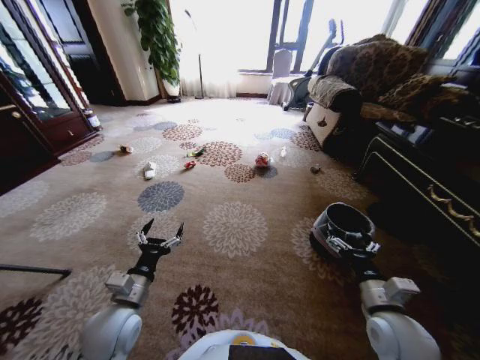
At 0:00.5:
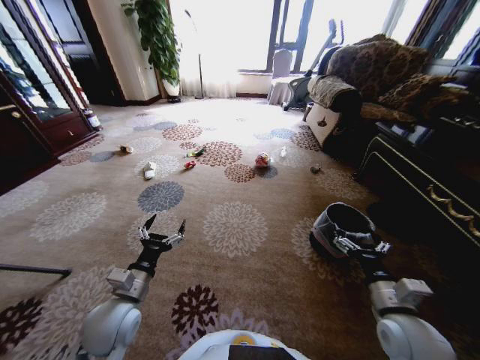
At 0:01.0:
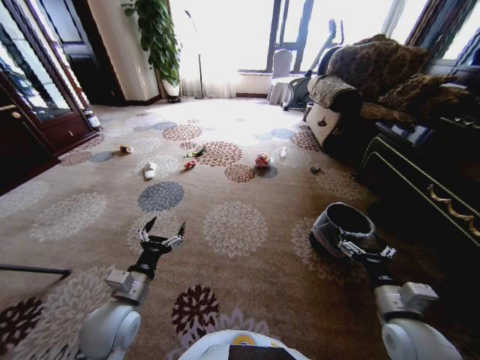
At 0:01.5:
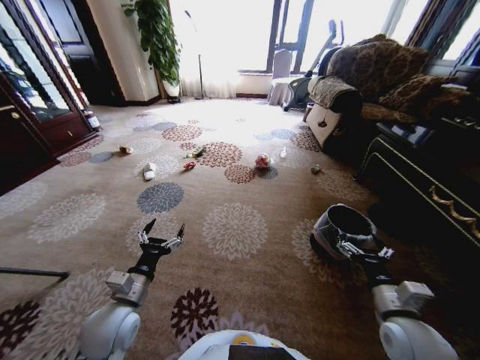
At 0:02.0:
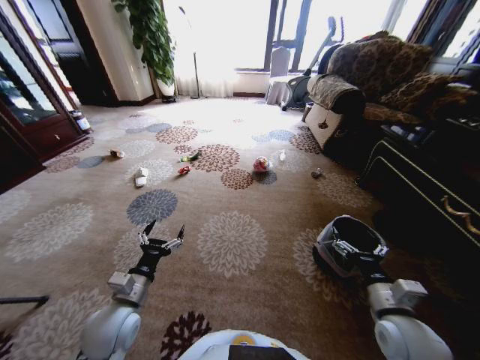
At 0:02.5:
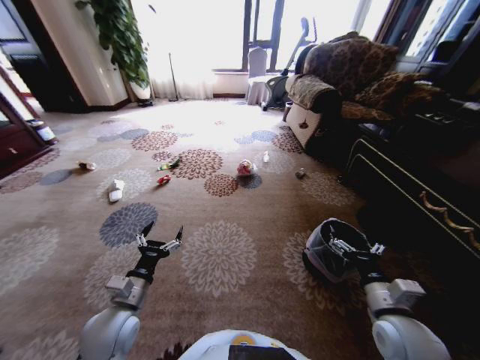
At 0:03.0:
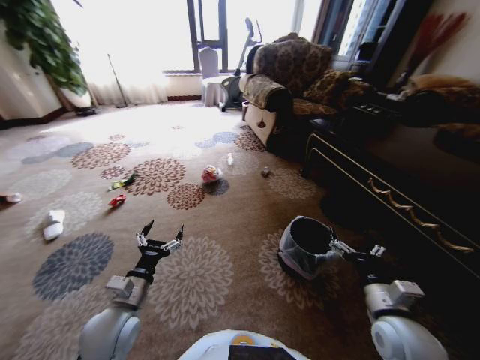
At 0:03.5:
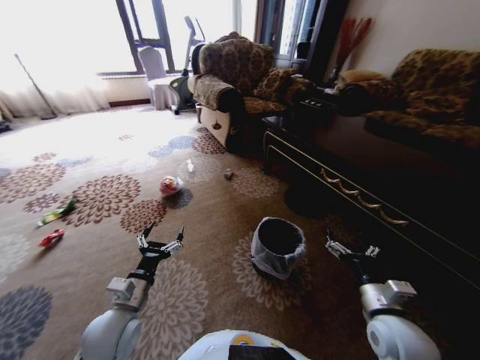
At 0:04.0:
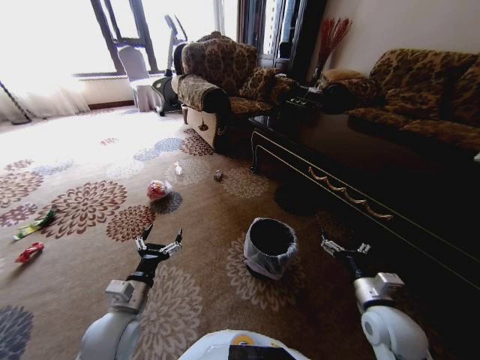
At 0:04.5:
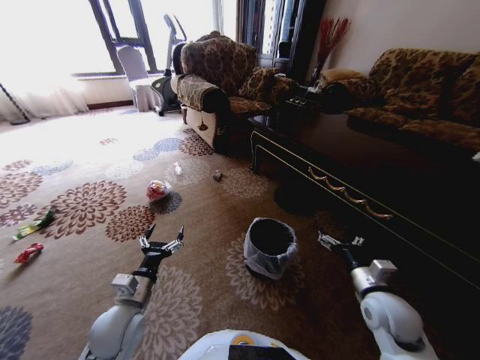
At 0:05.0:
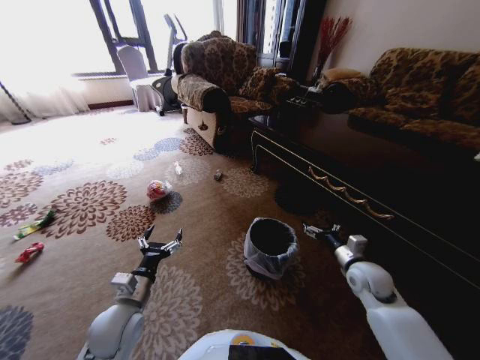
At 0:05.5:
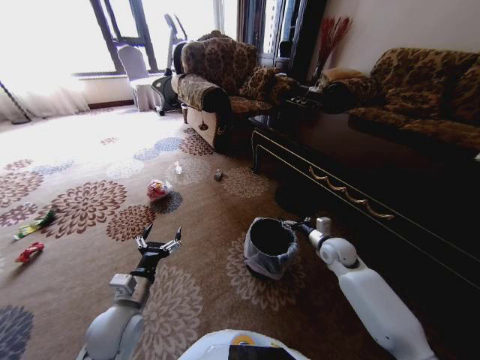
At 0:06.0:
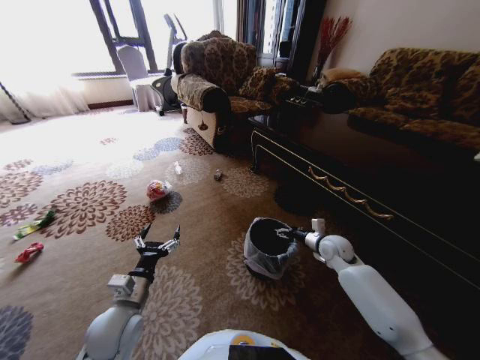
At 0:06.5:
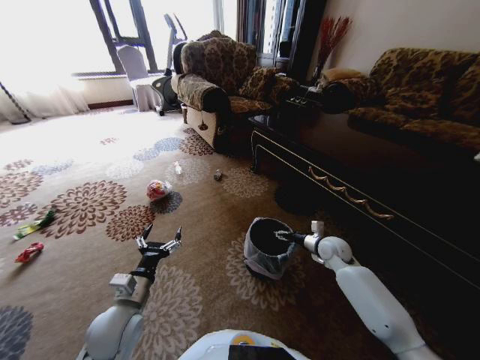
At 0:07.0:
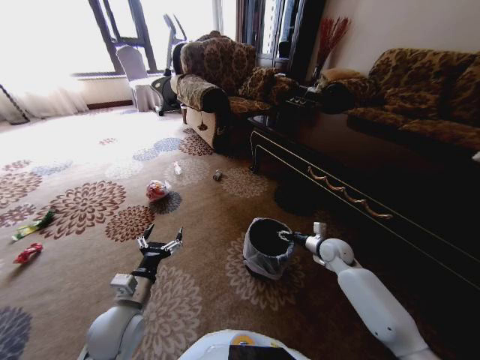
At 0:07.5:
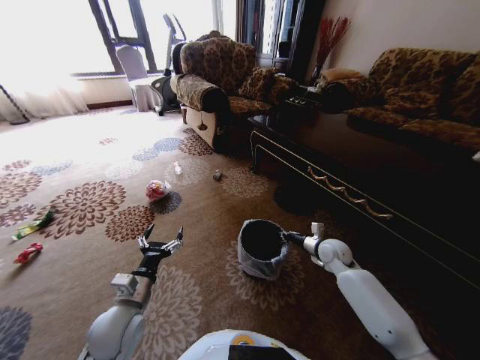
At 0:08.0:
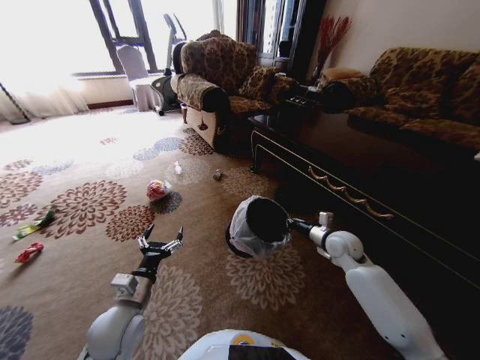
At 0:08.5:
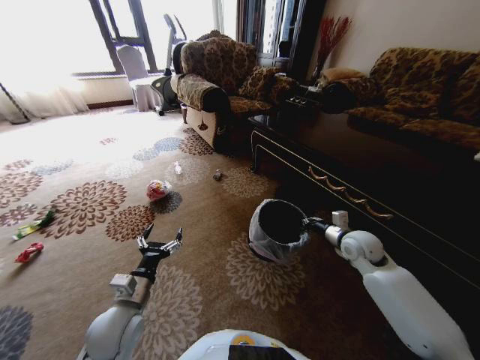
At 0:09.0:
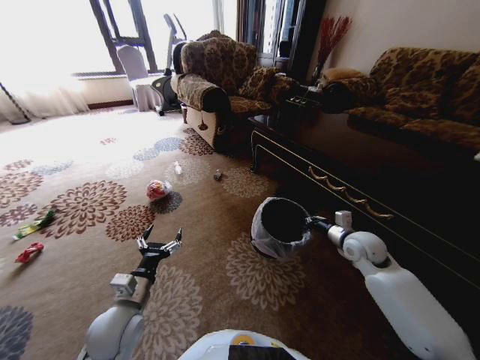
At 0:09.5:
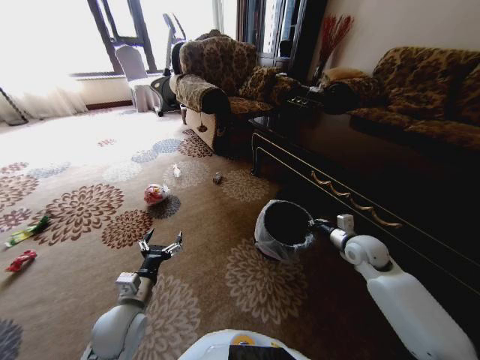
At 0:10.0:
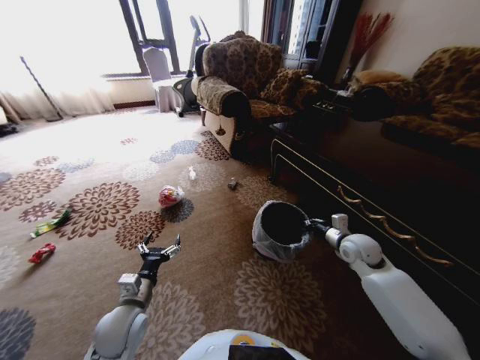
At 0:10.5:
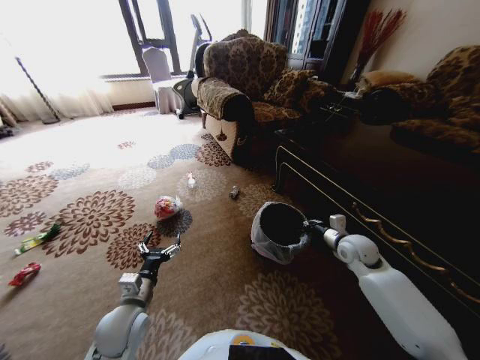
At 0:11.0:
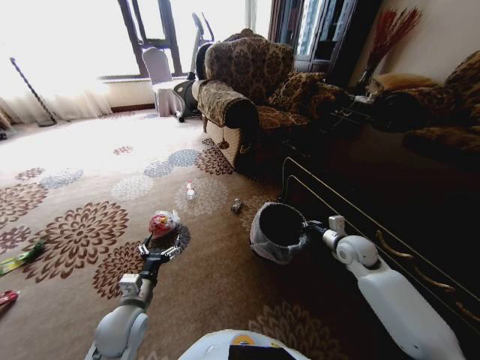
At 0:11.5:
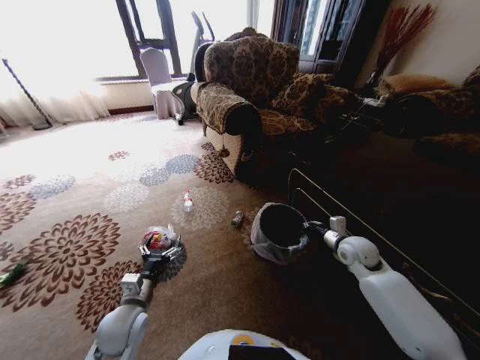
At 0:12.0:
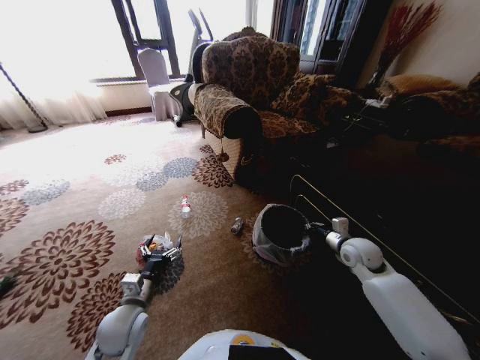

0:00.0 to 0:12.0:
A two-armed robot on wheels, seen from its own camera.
Task of the whole recording: Pick up the trash from the ground and place it into the trash bin.
0:04.0 to 0:06.0: The right gripper heads forward, covering approximately 20 cm.
0:06.0 to 0:08.0: The right gripper closes.

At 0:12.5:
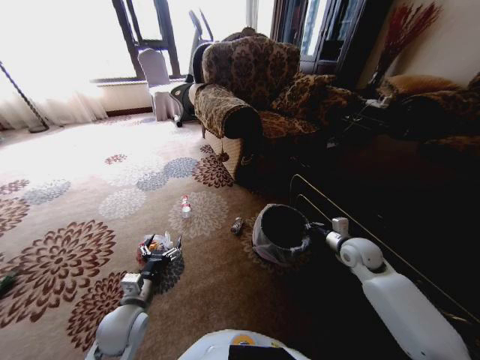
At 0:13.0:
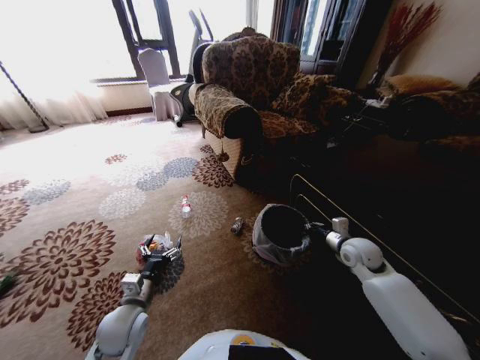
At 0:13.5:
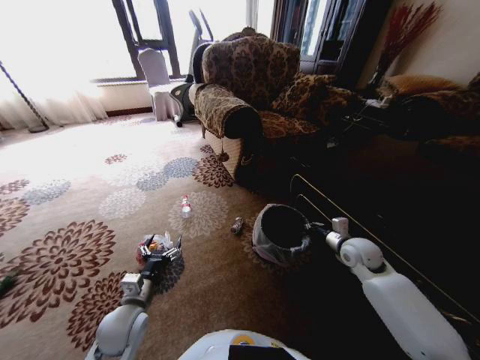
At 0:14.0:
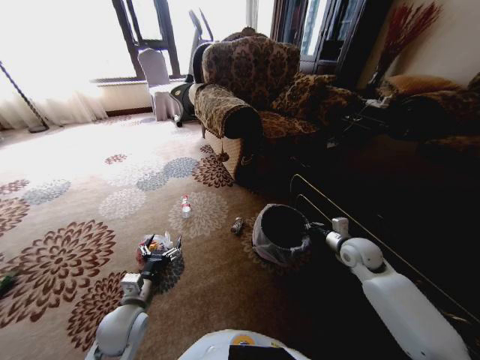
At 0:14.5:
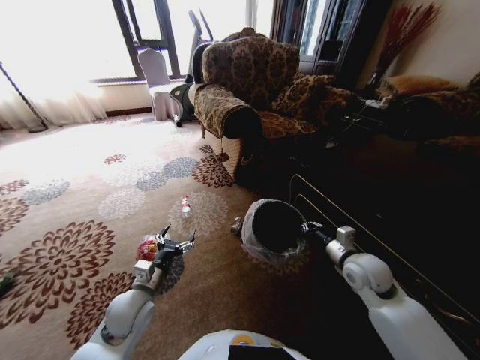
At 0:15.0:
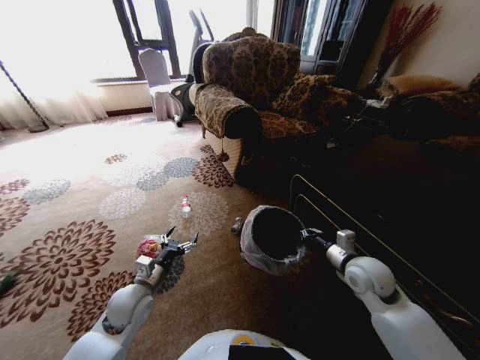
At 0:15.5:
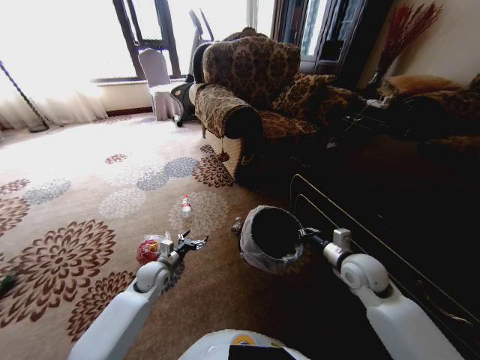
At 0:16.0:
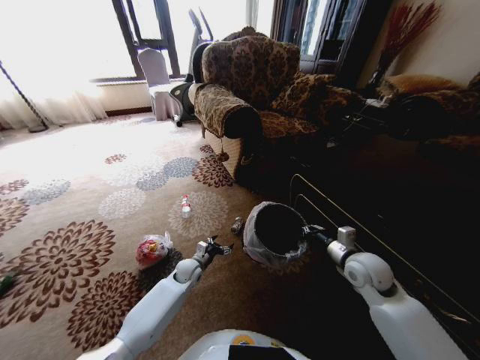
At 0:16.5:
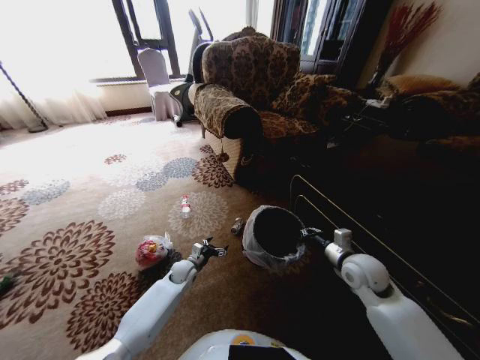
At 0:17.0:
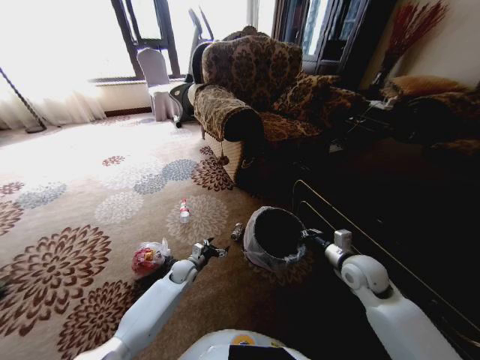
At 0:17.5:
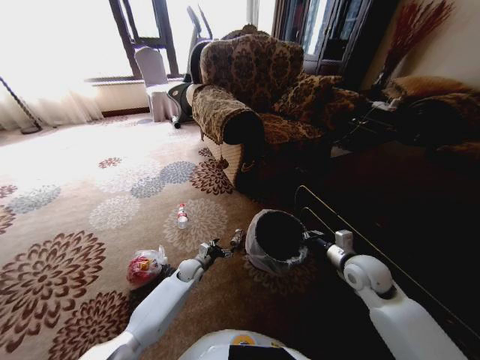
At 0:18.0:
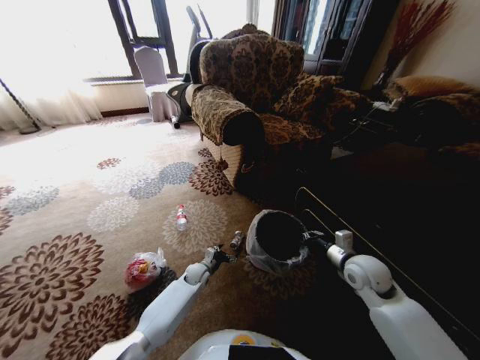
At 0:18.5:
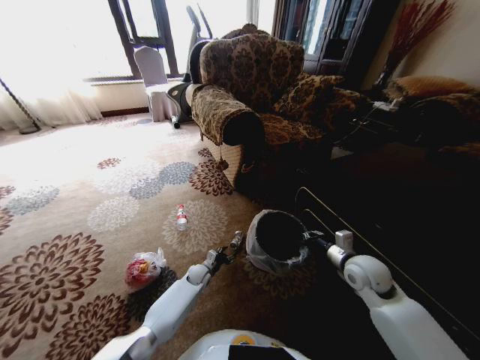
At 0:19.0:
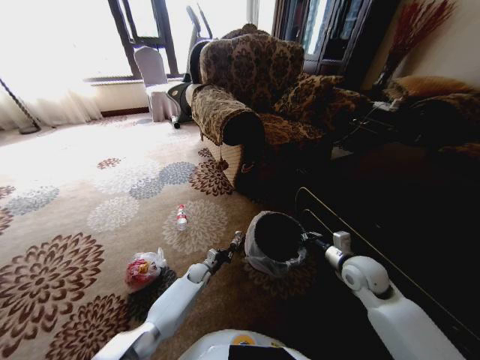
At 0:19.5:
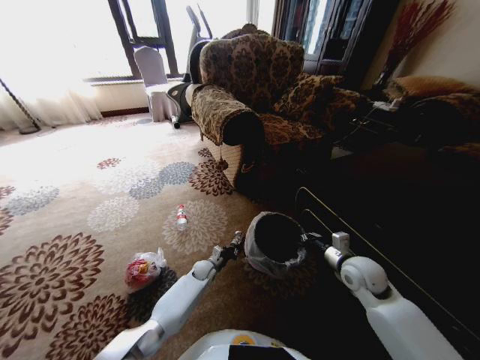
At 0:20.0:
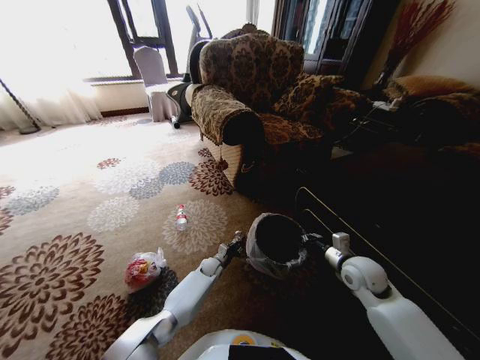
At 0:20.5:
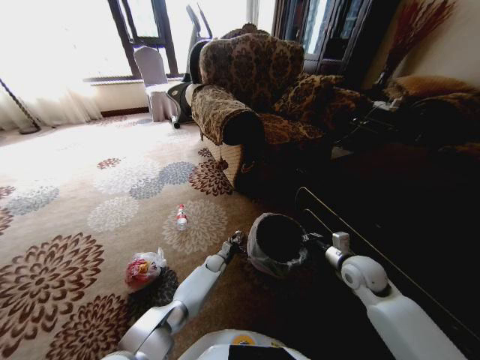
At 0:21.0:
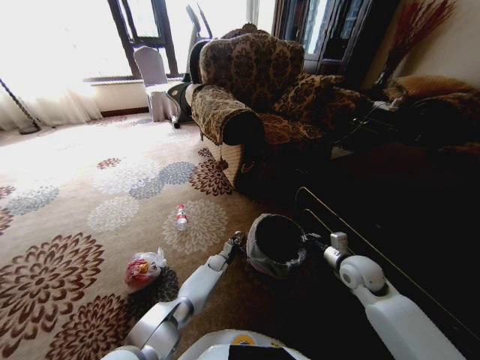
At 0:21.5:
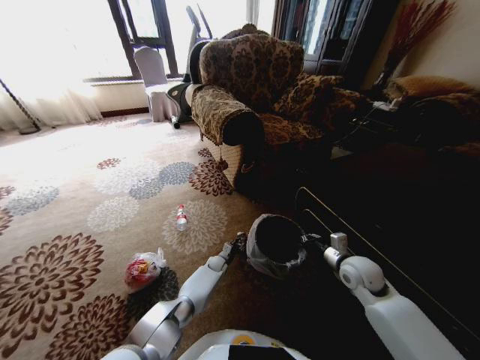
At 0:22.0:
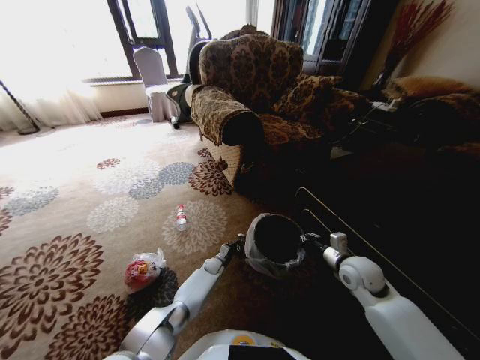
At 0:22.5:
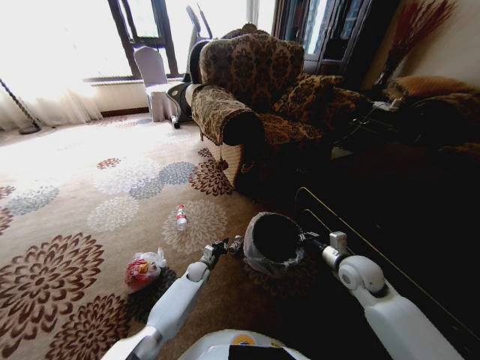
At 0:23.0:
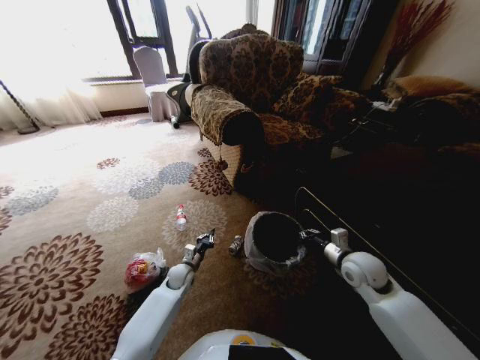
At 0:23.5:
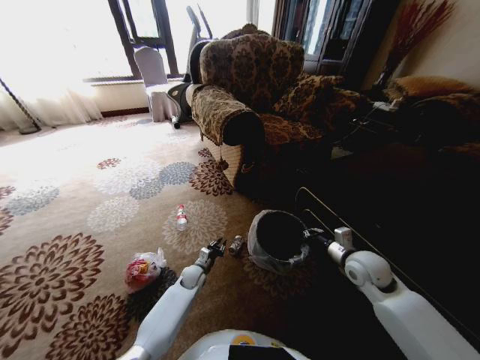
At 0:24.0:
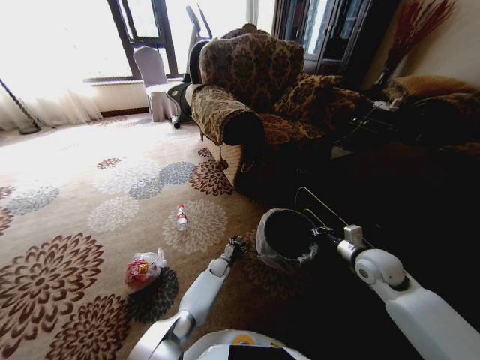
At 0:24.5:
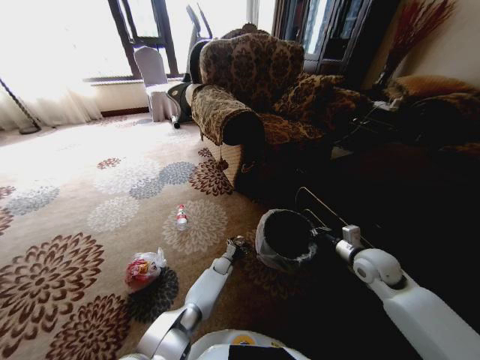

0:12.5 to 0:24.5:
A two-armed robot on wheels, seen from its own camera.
Task of the whole recording: Pick up the trash from the ground and place it into the trash bin.
0:12.5 to 0:14.5: The right gripper moves backward, about 5 cm.
0:14.5 to 0:16.5: The left gripper travels downward and forward by approximately 25 cm.
0:16.5 to 0:18.5: The left gripper is displaced downward by some 5 cm.
0:18.5 to 0:20.5: The left gripper heads to the right and forward, covering approximately 10 cm, and closes, then opens again.
0:20.5 to 0:22.5: The left gripper moves to the left, approximately 5 cm, and closes.
0:22.5 to 0:24.5: The left gripper is displaced to the right by roughly 10 cm, and opens.

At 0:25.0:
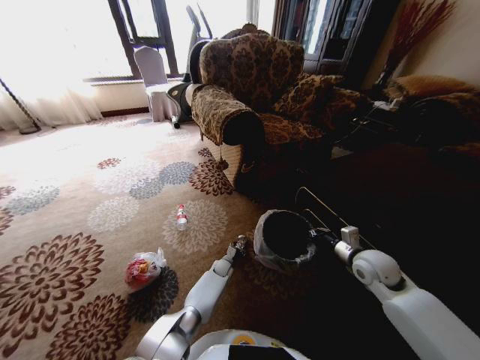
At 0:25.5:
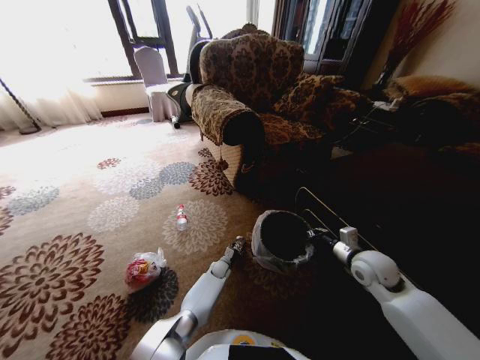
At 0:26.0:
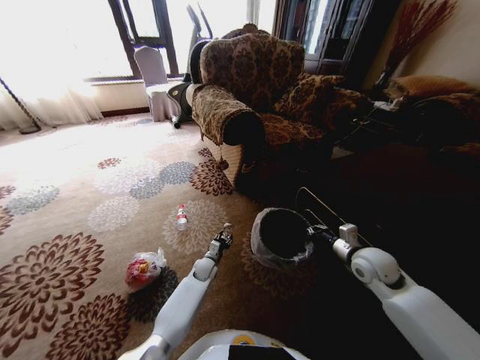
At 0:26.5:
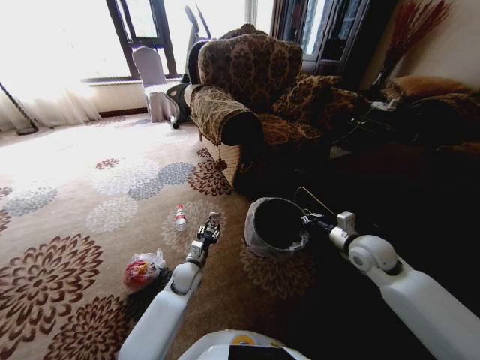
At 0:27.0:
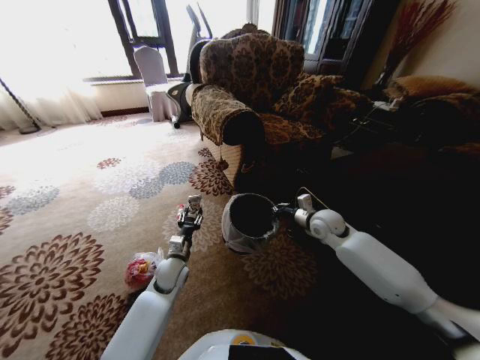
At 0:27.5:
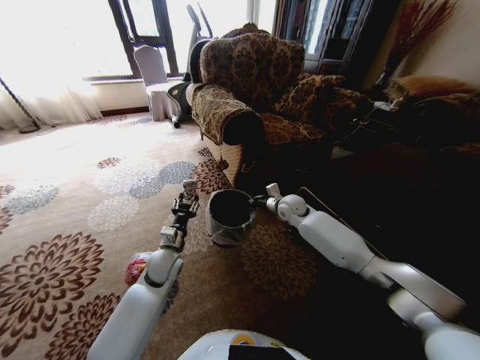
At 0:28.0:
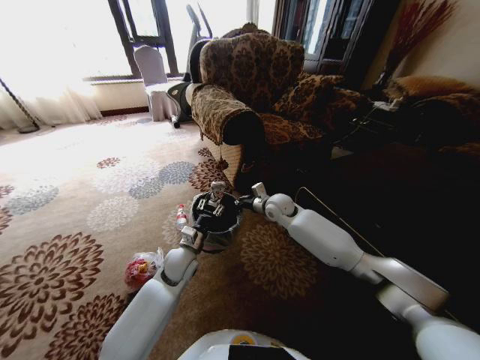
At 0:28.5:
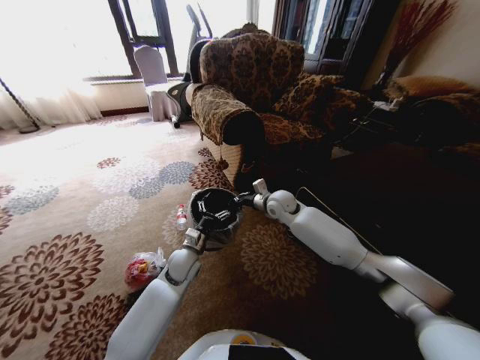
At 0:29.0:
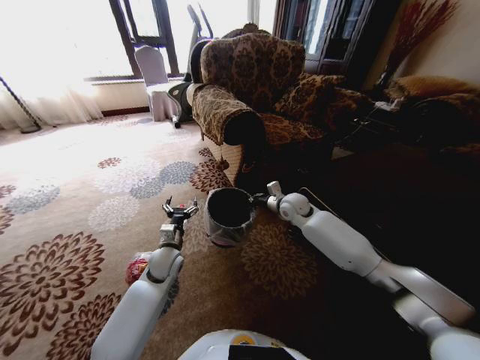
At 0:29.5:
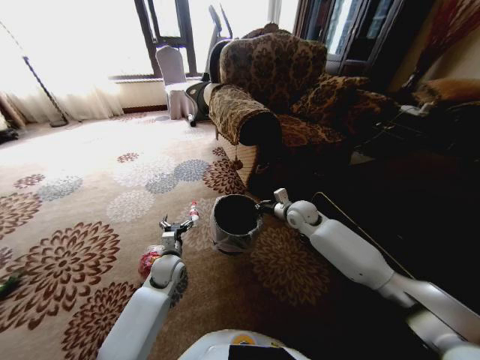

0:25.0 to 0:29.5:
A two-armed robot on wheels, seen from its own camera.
Task of the whole recording: Pick up the trash from the ground and place it into the trash bin.
0:25.0 to 0:27.0: The right gripper shifts about 15 cm forward and to the left; the left gripper moves upward, to the left and backward, approximately 25 cm.
0:27.0 to 0:29.5: The right gripper shifts roughly 5 cm to the left; the left gripper opens up.
